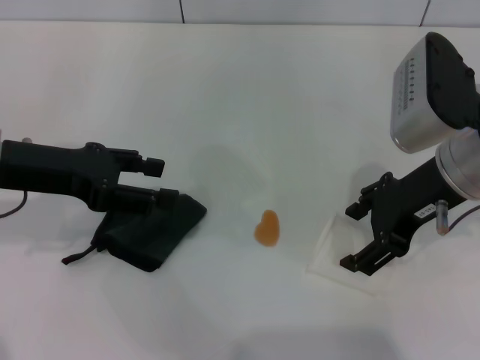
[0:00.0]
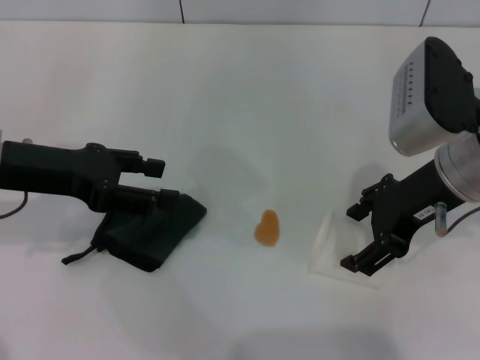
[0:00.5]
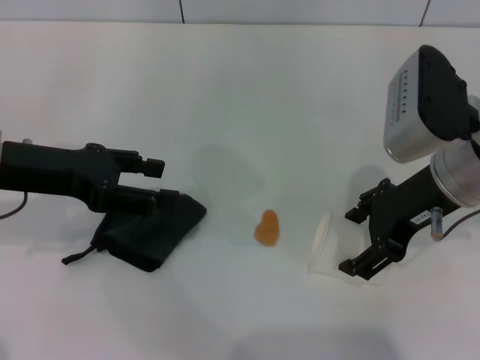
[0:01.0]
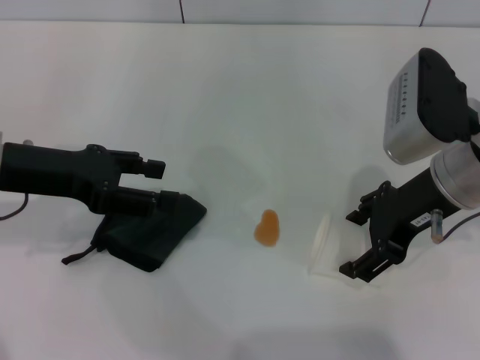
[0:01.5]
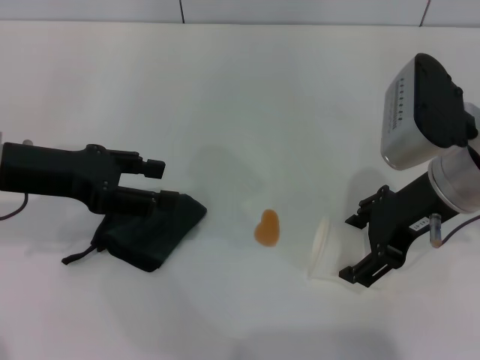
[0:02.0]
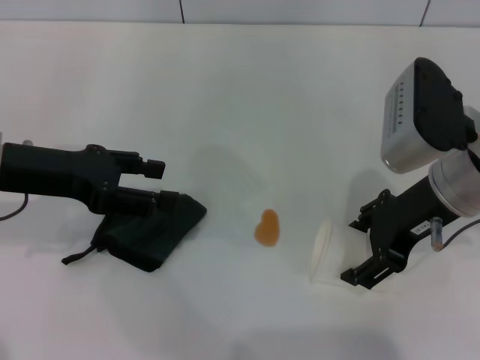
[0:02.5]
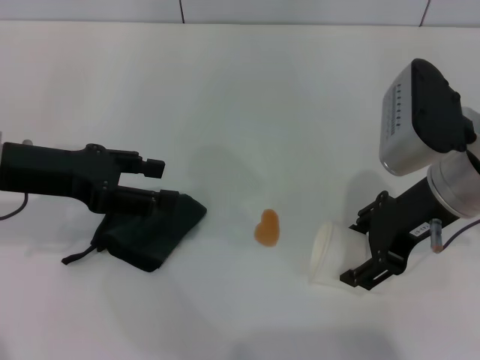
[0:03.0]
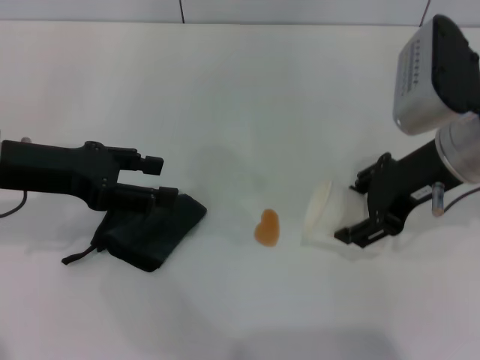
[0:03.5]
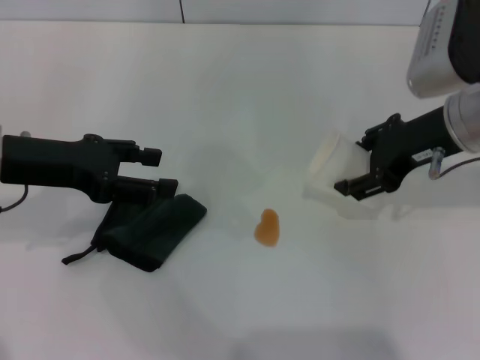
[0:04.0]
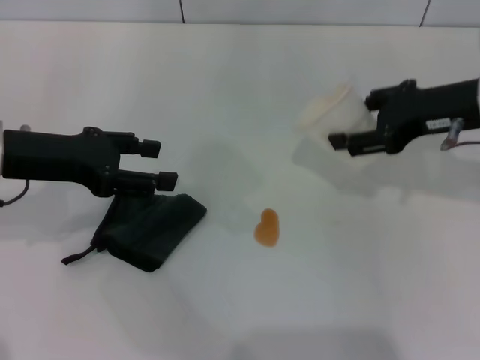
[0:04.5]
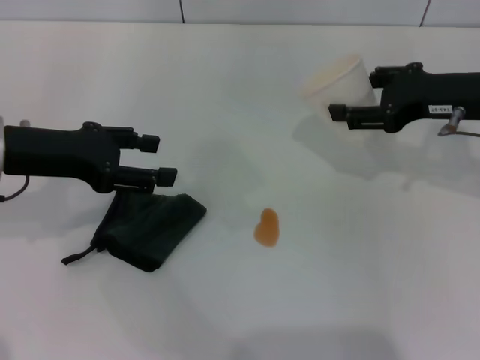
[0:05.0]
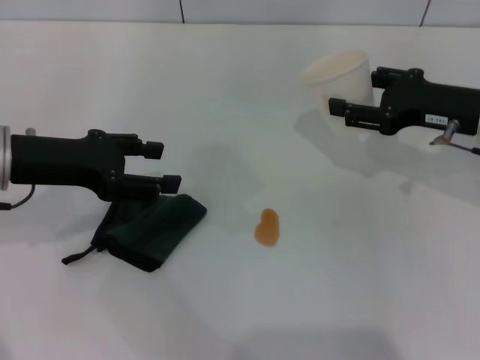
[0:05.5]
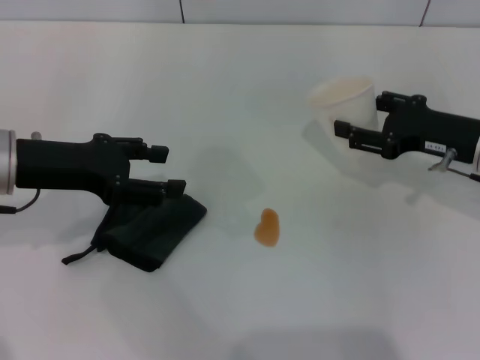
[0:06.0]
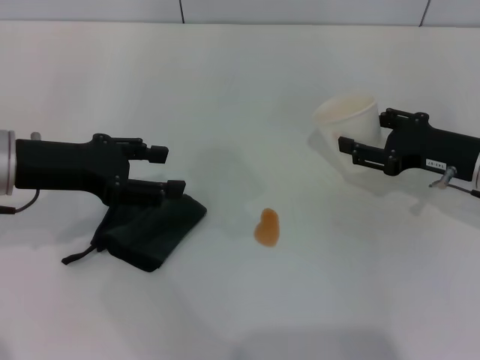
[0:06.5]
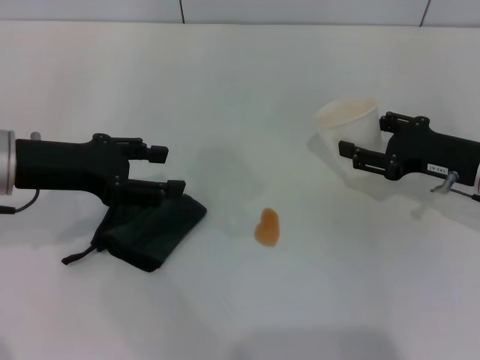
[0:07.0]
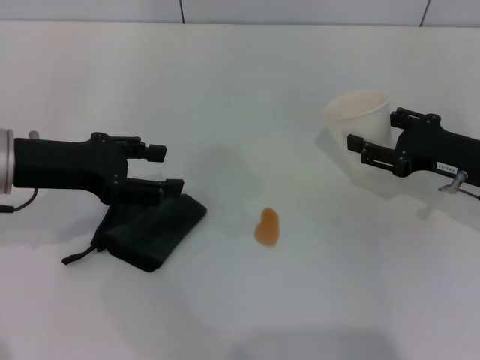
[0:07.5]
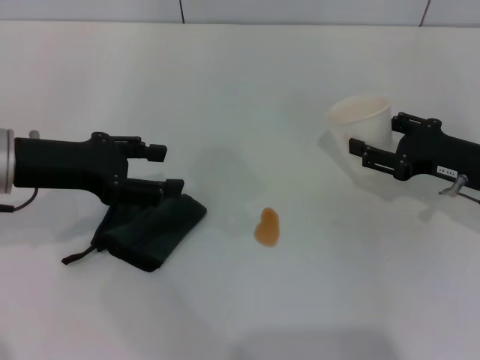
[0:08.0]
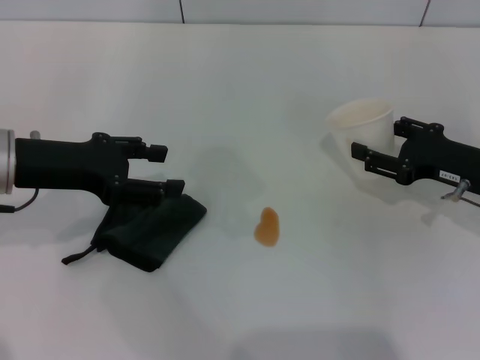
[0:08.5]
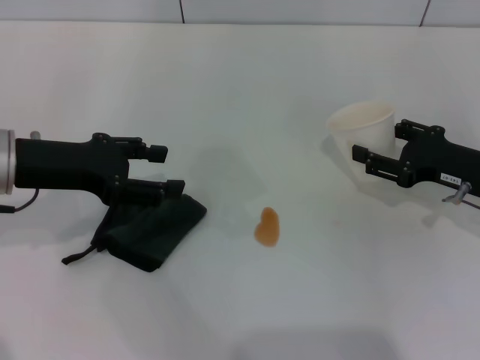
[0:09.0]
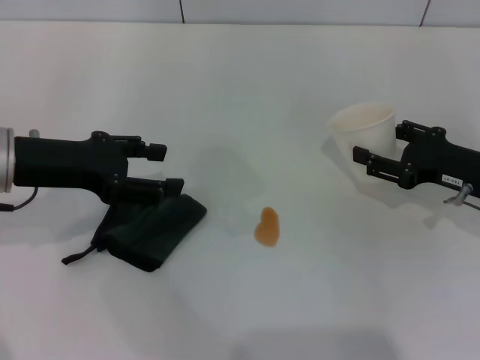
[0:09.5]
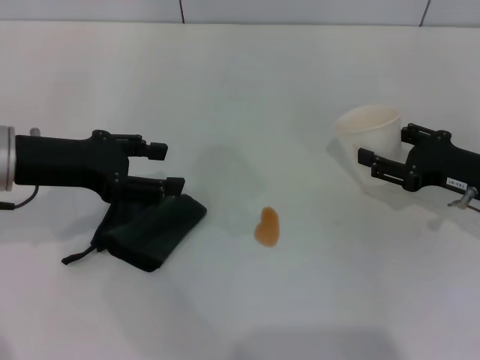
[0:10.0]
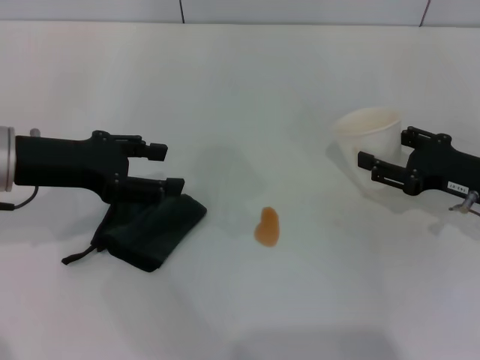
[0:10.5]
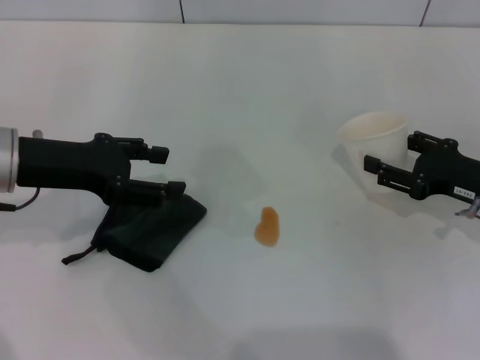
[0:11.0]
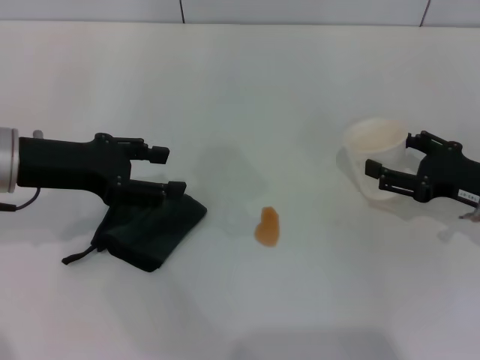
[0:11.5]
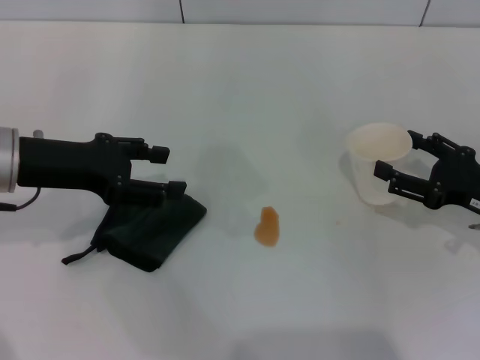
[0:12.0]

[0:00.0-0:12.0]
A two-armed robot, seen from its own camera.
Step, 0:00.0 to 0:03.0: Grasp the paper cup with the right gripper.
0:00.0 to 0:02.0: The grippers stay close to where they were, moving slightly.
0:02.0 to 0:04.0: The right gripper closes.
0:04.0 to 0:06.0: The right gripper moves downward and to the right, some 10 cm.
0:06.0 to 0:10.0: The grippers make only small movements.
0:10.0 to 0:12.0: The right gripper opens its fingers.

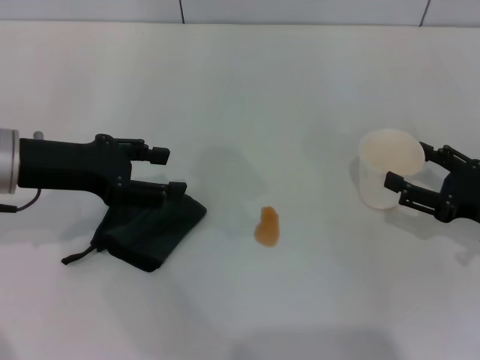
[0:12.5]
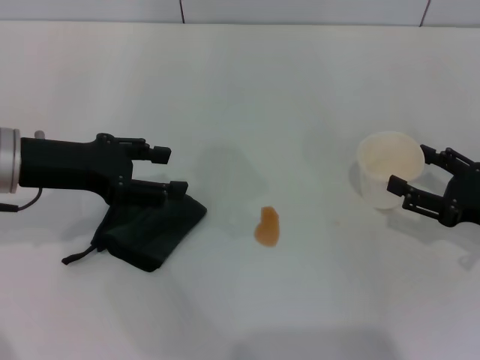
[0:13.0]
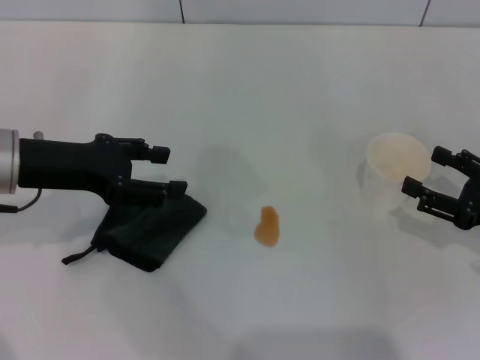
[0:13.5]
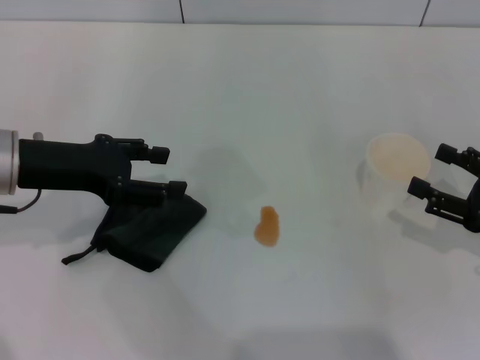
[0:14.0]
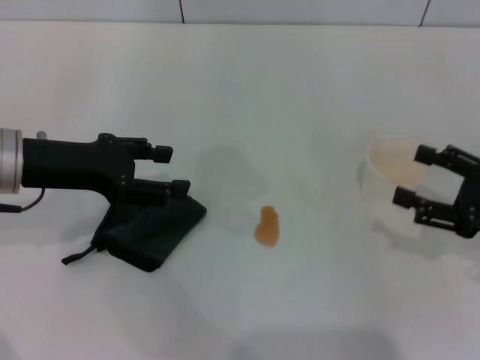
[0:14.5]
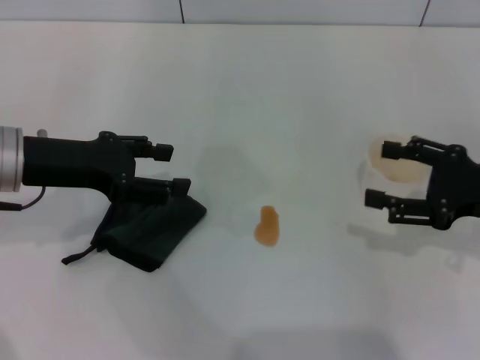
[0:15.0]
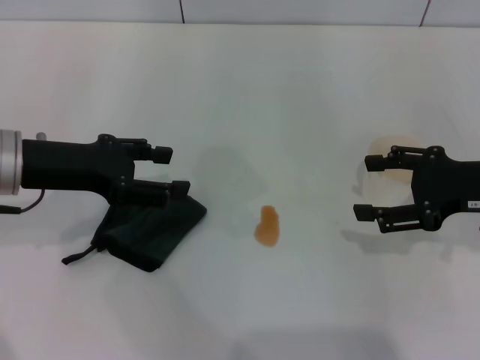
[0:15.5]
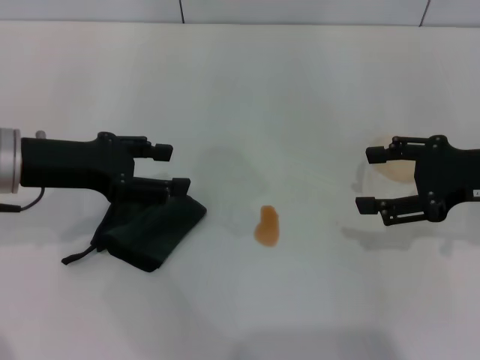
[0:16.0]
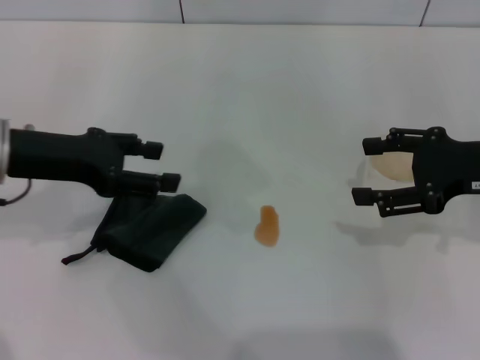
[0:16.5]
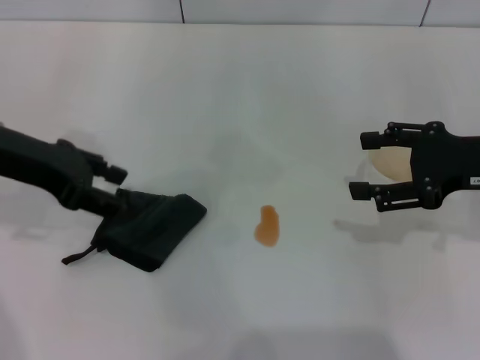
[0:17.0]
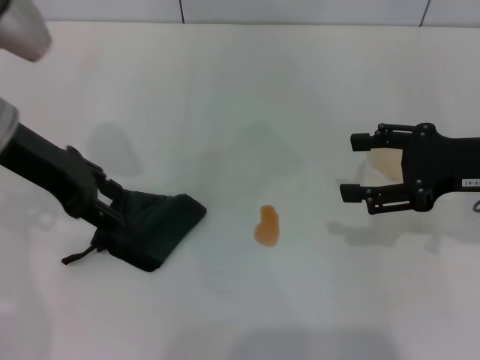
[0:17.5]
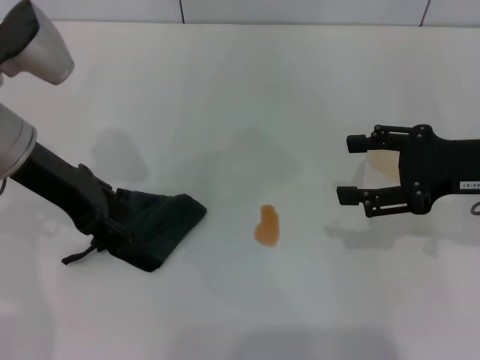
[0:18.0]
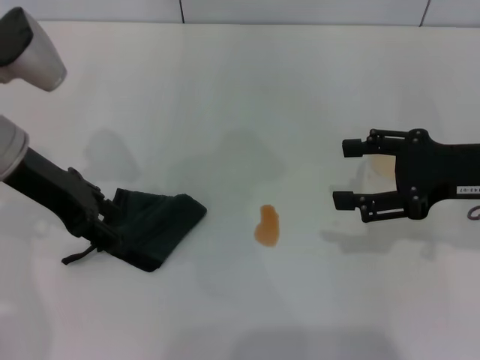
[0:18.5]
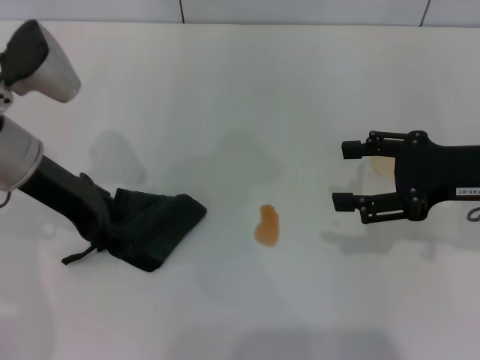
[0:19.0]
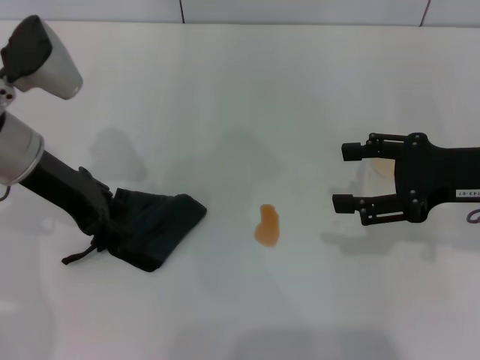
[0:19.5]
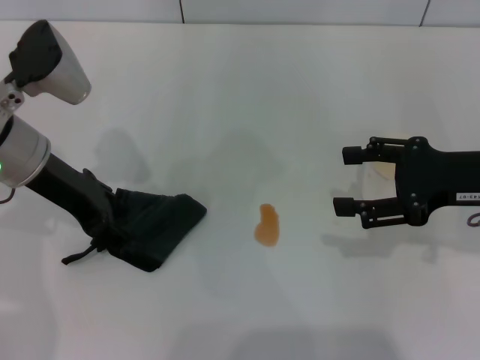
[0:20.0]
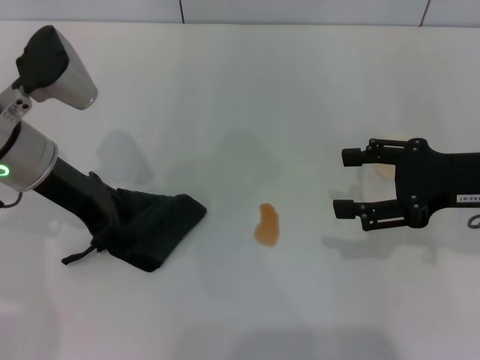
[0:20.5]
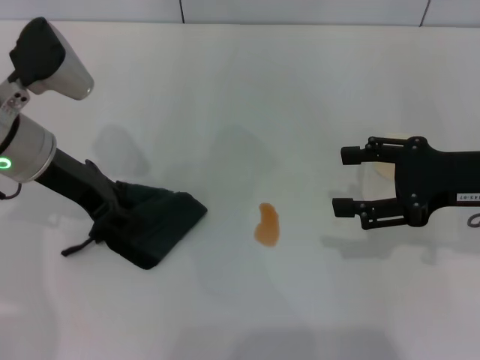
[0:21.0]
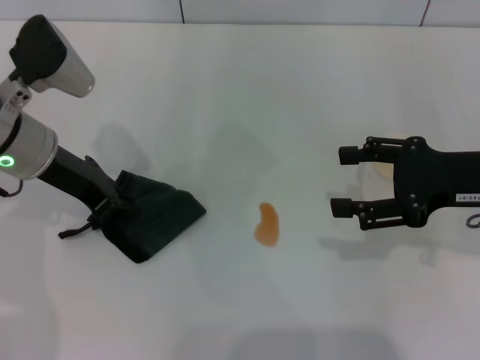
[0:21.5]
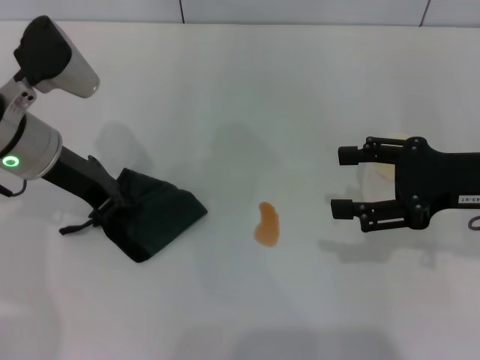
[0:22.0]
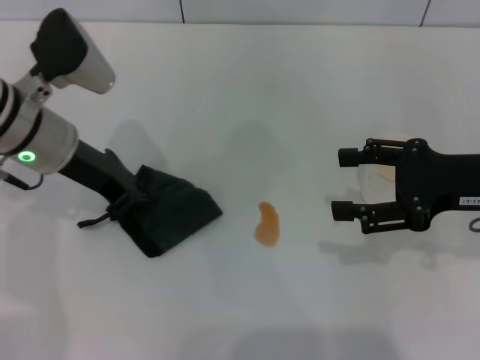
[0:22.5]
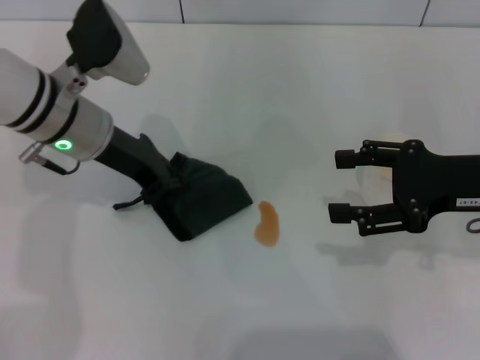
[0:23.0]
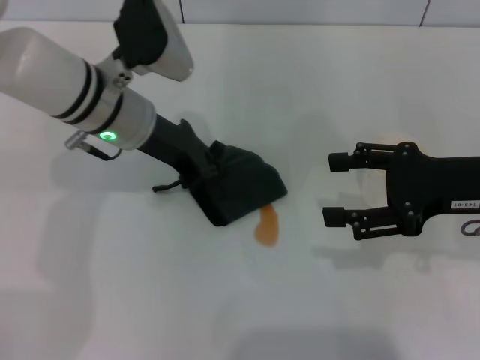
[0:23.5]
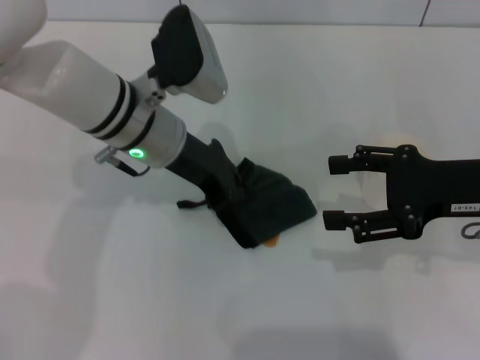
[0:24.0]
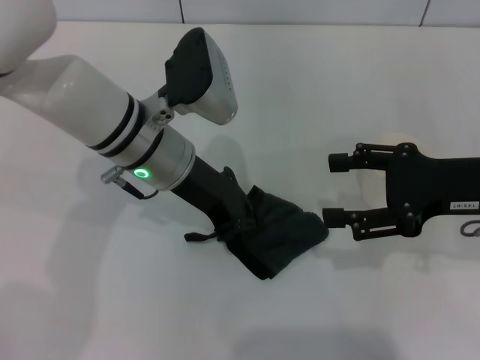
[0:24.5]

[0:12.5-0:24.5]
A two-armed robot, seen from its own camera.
Step, 0:14.5 to 0:22.0: Grasp the rag with the left gripper.
0:12.5 to 0:14.5: The grippers move only a little.
0:14.5 to 0:16.5: The right gripper goes about 10 cm upward and forward.
0:18.5 to 0:20.5: The grippers stay close to where they were, moving slightly.
0:20.5 to 0:22.5: The left gripper closes up.
0:22.5 to 0:24.5: The left gripper moves to the right, roughly 10 cm.

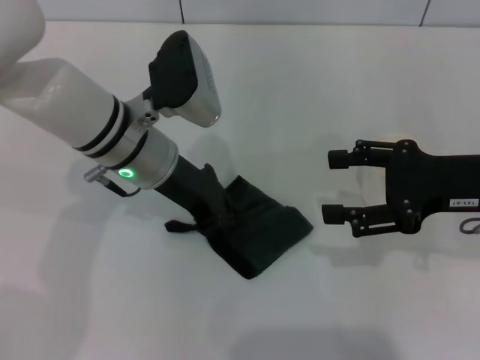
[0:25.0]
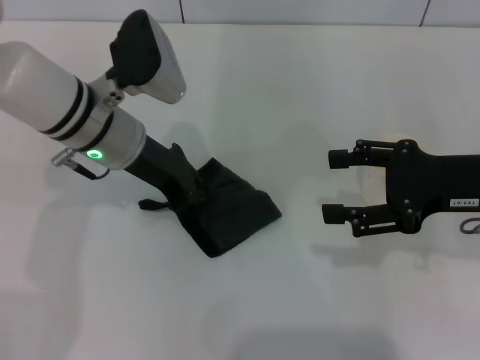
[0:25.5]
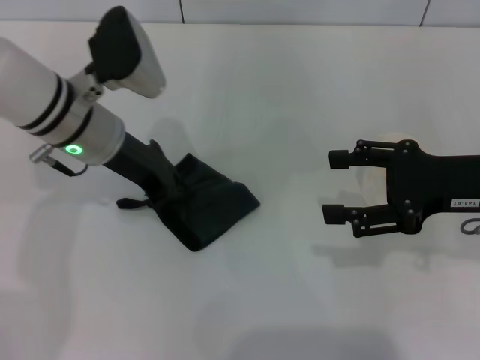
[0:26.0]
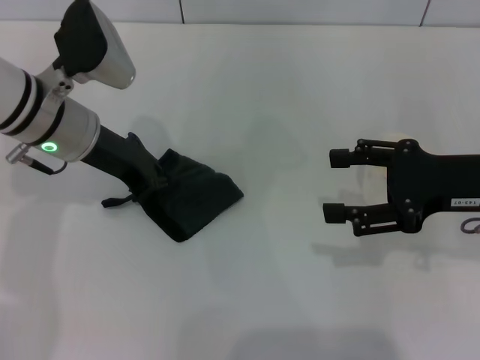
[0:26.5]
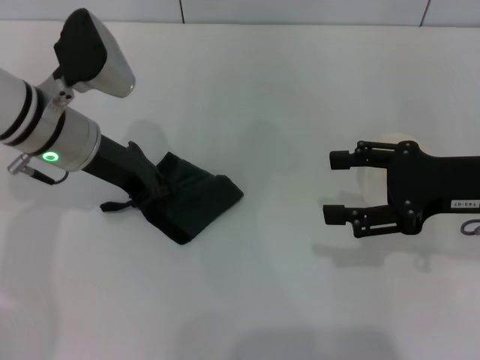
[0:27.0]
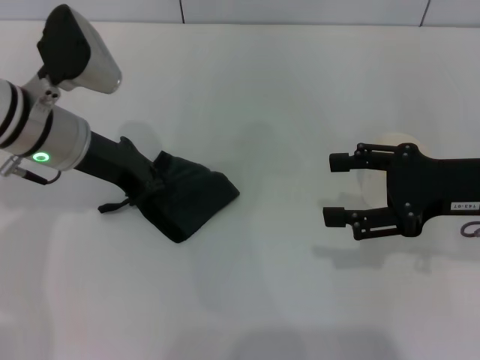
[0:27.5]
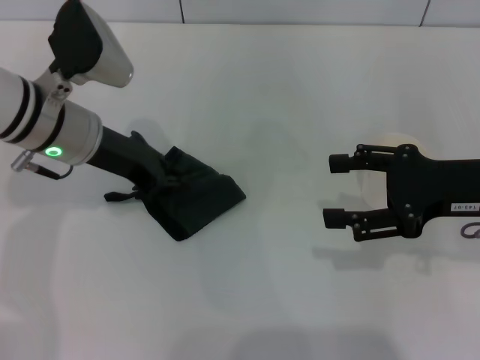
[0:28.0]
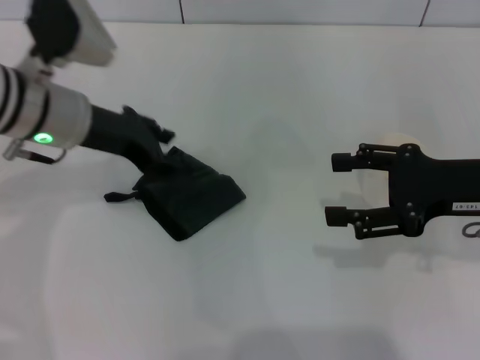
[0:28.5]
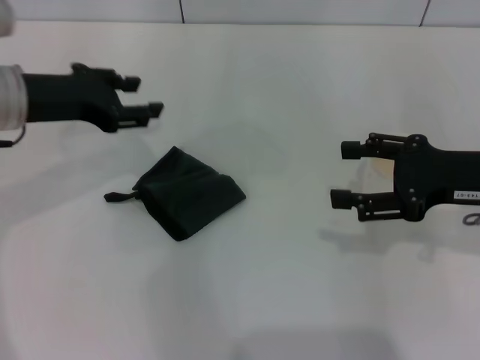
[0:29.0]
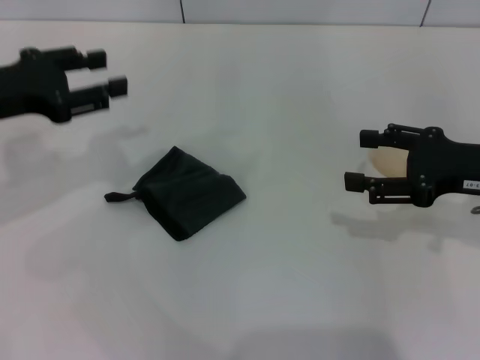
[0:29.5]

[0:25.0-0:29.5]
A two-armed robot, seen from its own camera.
Step, 0:25.0 to 0:27.5: Wipe the stains off the table with the left gripper.
Step, 0:28.0 to 0:28.5: Place the rag on the table with the left gripper.
0:25.0 to 0:27.0: The left gripper is displaced to the left by some 5 cm.
0:27.0 to 0:29.5: The left gripper heads to the left, covering approximately 10 cm, and opens its fingers.
